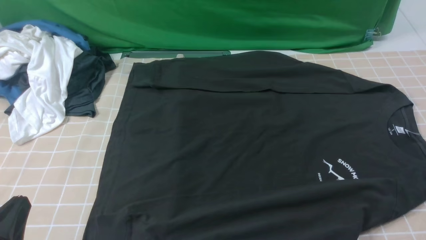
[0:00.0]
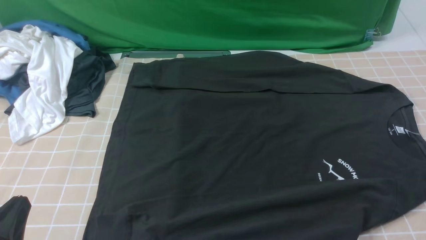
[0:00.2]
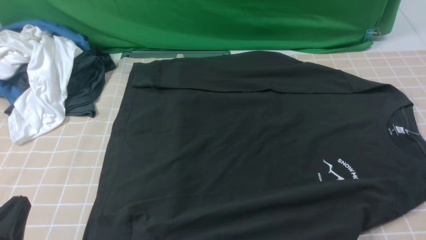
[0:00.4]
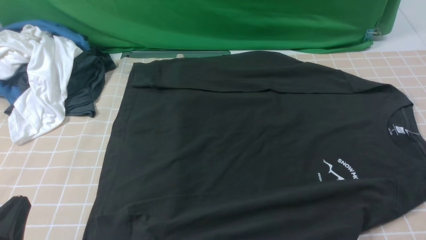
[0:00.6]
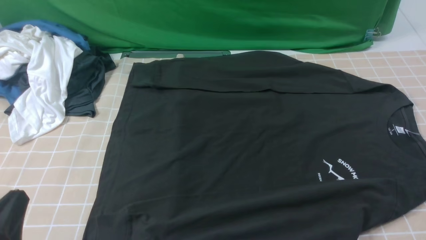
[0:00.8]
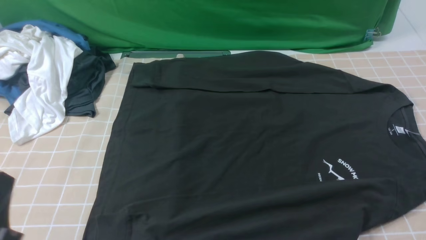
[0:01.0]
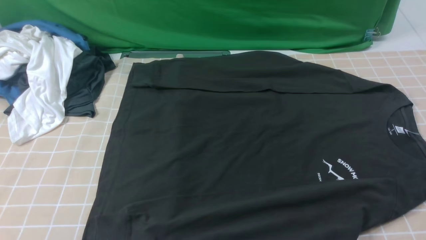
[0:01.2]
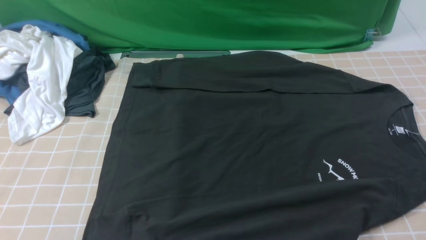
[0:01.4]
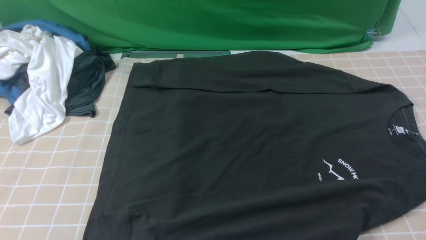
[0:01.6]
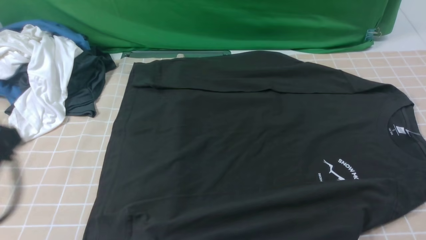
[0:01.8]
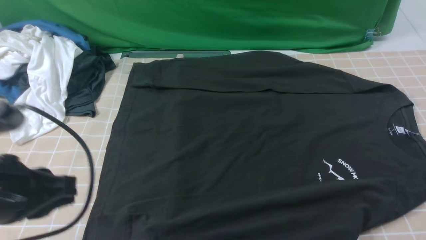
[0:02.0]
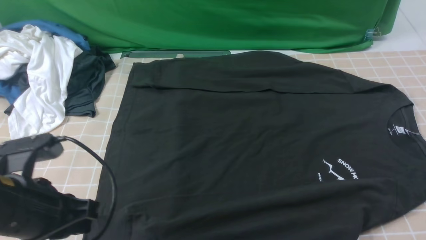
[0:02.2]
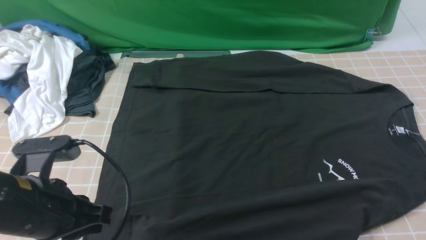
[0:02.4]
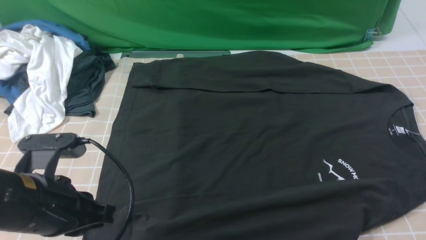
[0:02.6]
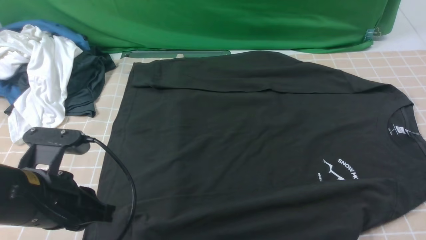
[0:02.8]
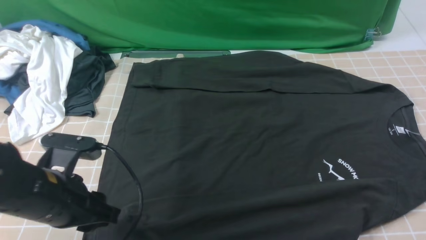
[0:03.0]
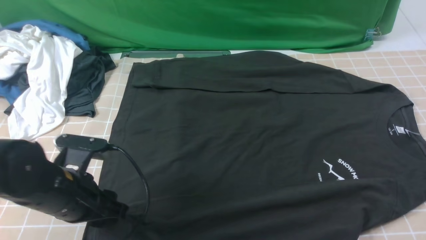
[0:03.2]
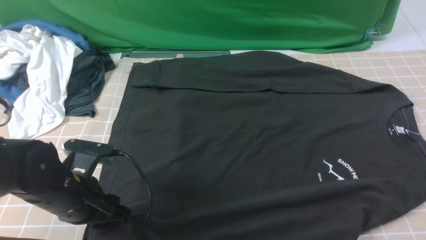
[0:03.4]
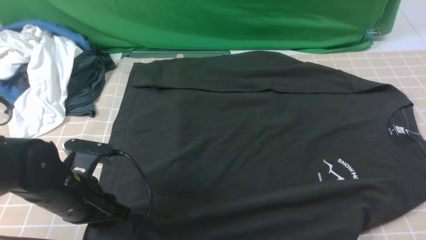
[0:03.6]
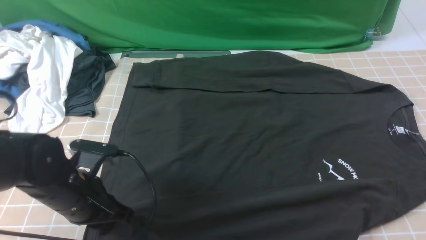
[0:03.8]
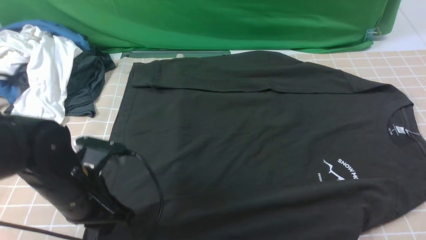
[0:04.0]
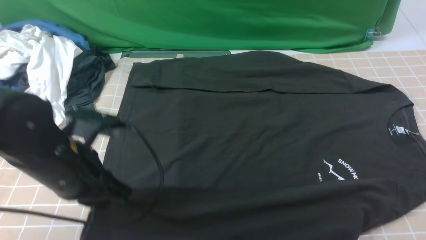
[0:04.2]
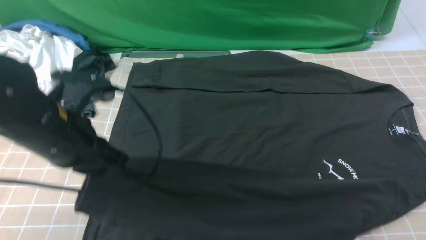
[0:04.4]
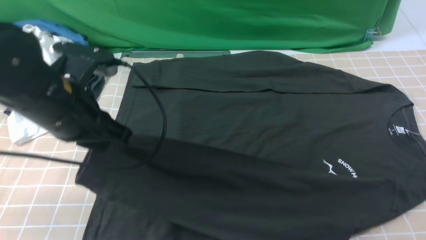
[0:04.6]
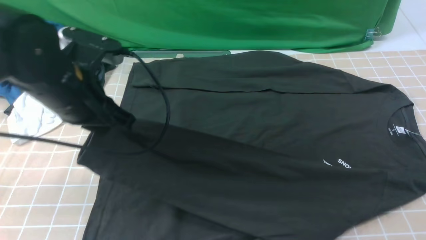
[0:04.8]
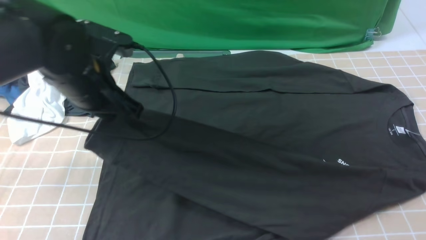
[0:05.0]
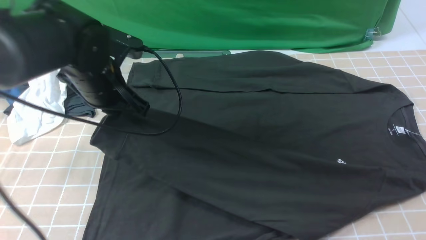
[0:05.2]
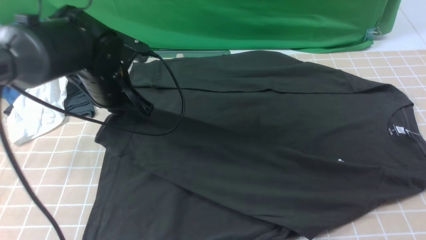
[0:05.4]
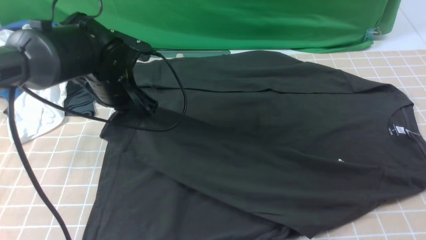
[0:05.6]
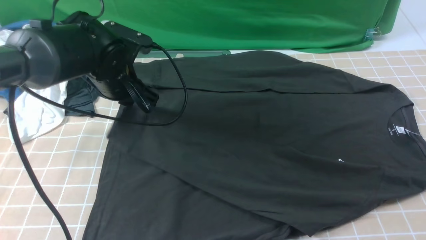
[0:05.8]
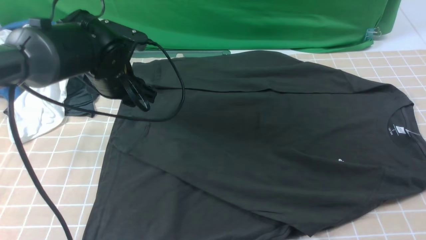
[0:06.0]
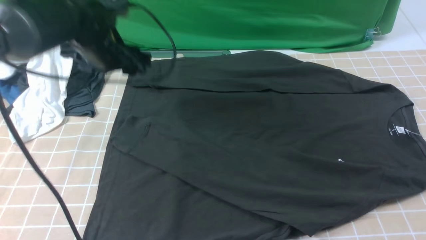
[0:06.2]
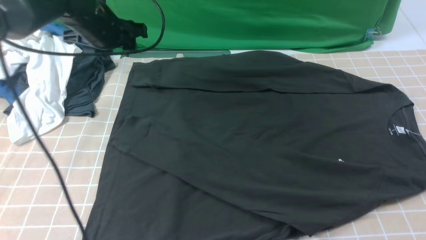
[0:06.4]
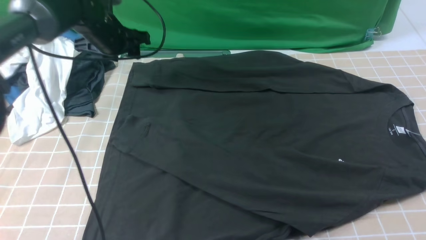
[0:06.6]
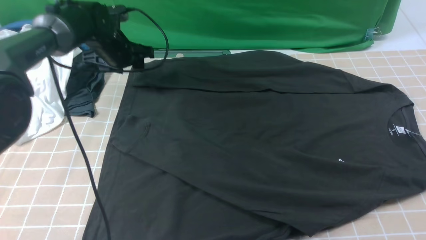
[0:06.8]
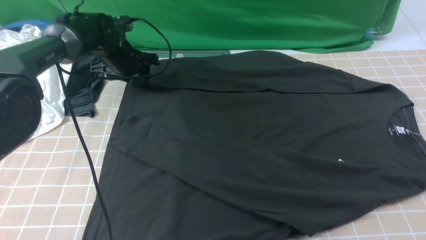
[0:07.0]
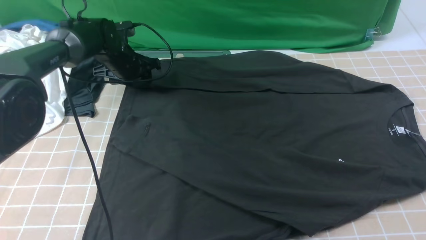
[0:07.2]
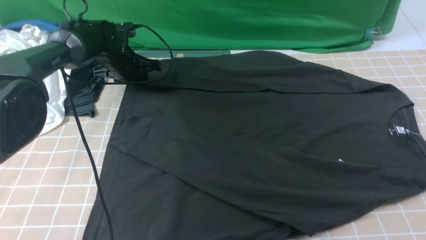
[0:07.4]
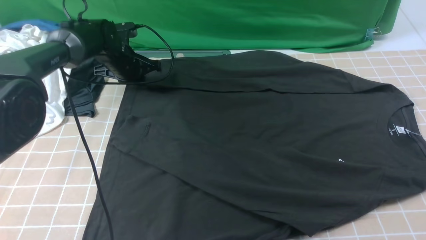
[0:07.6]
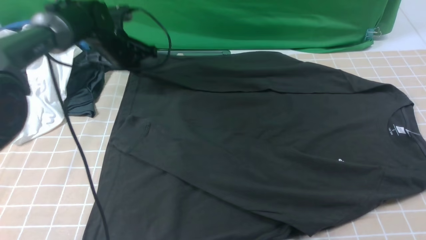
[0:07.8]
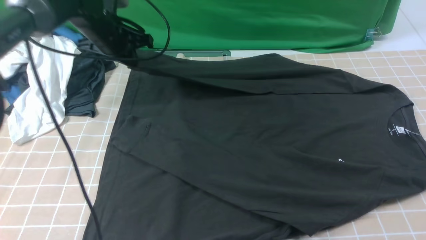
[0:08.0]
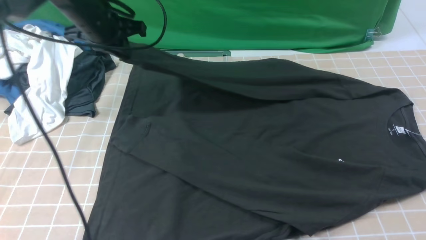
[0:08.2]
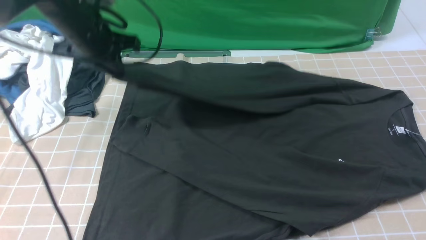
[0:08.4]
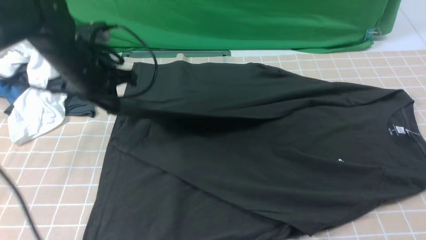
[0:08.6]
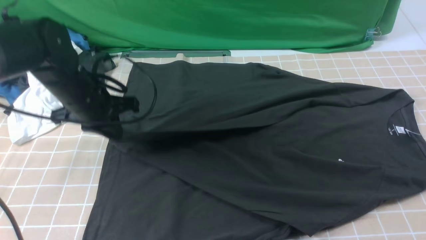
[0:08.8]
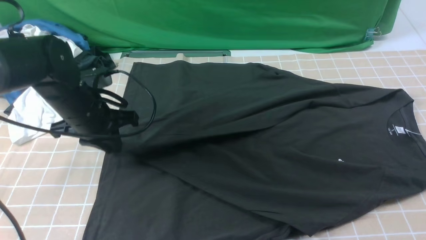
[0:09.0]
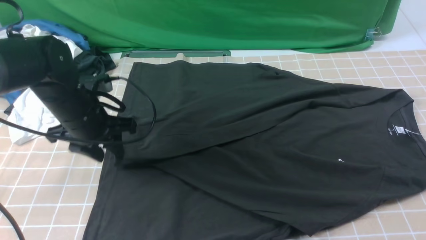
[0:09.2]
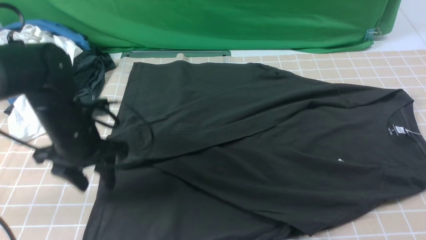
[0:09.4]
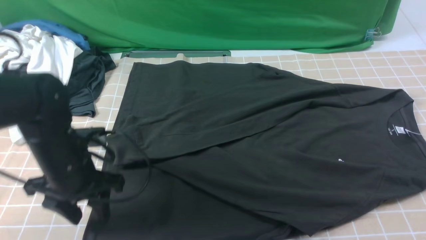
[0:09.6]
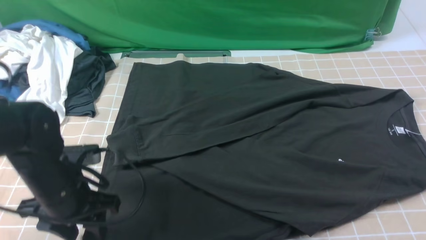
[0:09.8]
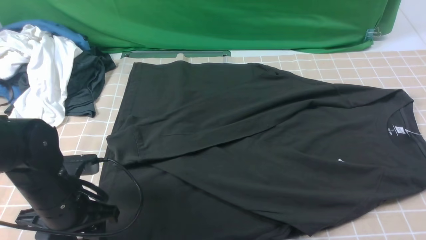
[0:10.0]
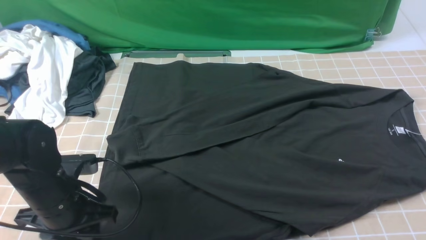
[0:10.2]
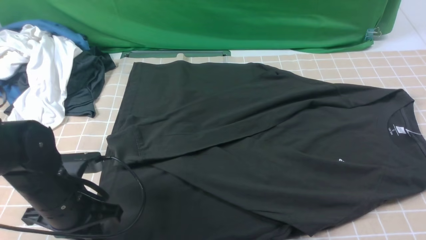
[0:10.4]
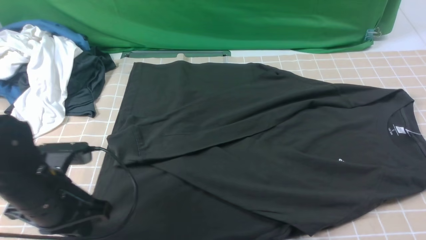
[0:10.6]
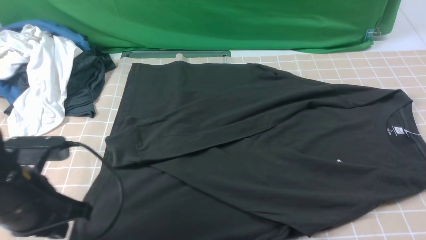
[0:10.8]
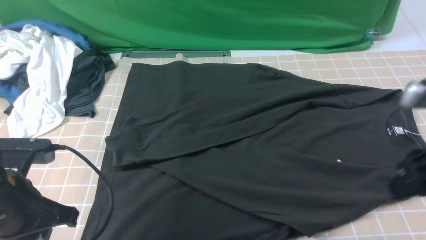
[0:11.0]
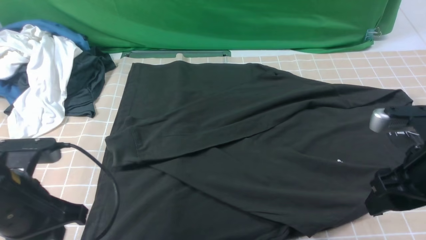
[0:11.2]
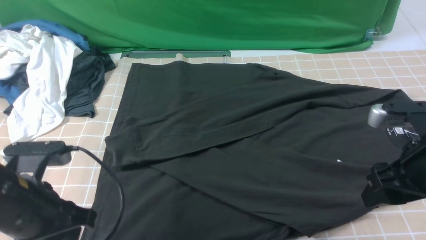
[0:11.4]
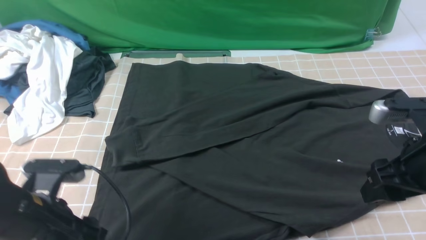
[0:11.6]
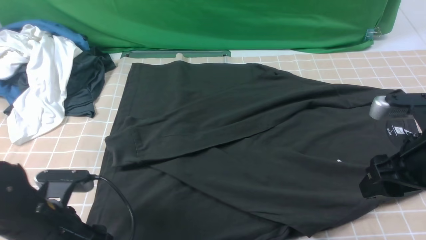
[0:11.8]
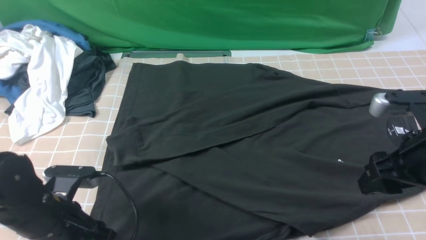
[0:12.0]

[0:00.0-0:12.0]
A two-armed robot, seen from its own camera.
Step, 0.0 to 3.8 s: use the left arm to clamp the cuff closest to it.
Step, 4.0 to 5.8 s: use the left arm to drag and place the cuff at the centered position on the left edge of the fabric.
Step, 6.0 to 7.4 s: use the left arm to clamp the cuff farthest from it.
Step, 7.8 to 9.2 s: use the left arm to drag and drop the cuff onto the cuff closest to the left arm.
0.0 to 1.6 s: The left gripper is displaced upward by approximately 15 cm.
1.6 to 3.0 s: The left gripper travels downward and forward by approximately 20 cm, and opens its fingers.
3.0 to 4.4 s: The left gripper is displaced upward by about 5 cm, and closes its fingers.
4.4 to 6.0 s: The left gripper heads forward, covering approximately 15 cm, and opens.
6.0 to 7.6 s: The left gripper is displaced forward and downward by about 15 cm, and closes up.
7.6 to 9.0 s: The left gripper heads backward, covering some 15 cm.
9.0 to 10.4 s: The left gripper goes some 15 cm backward, and opens, then closes once more.
10.4 to 12.0 s: The right gripper goes about 15 cm downward and forward, and opens, while the left gripper opens its fingers.

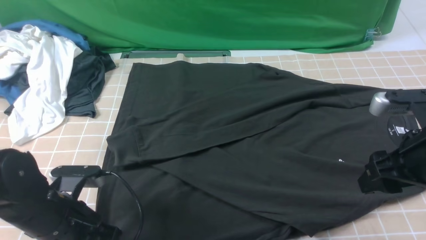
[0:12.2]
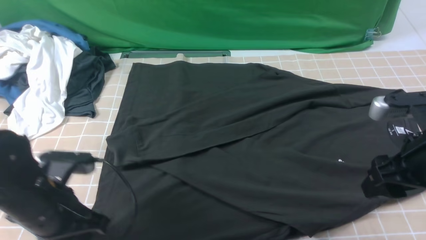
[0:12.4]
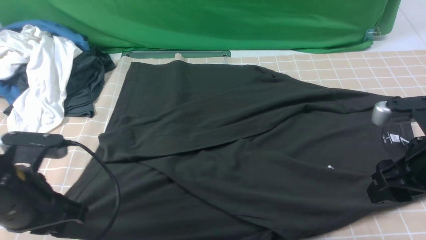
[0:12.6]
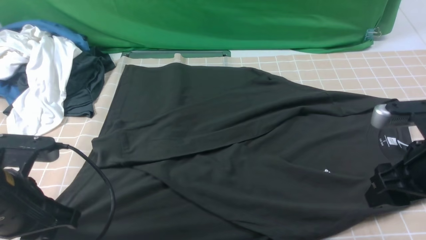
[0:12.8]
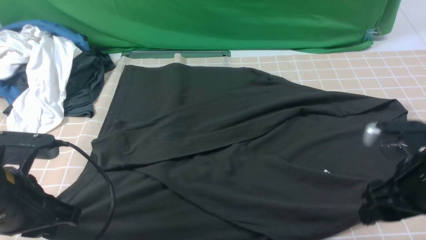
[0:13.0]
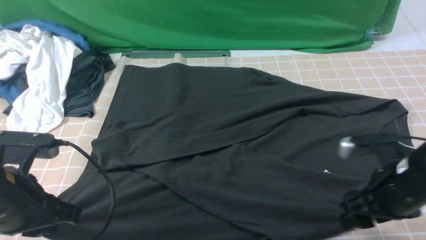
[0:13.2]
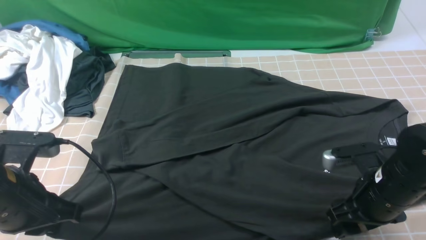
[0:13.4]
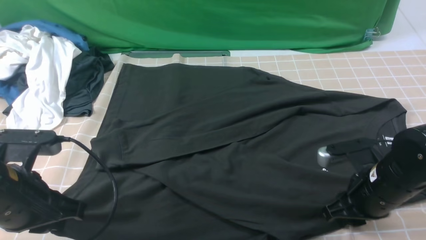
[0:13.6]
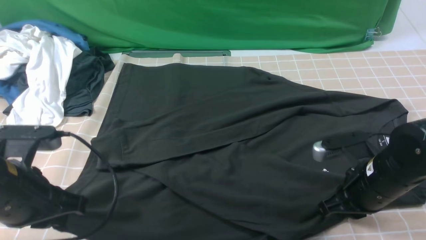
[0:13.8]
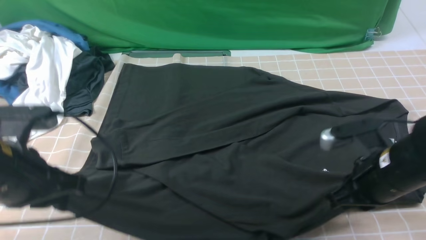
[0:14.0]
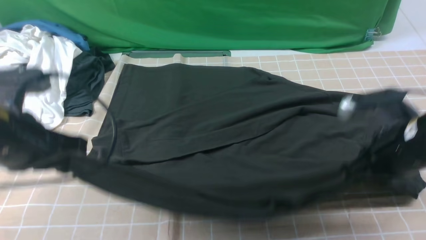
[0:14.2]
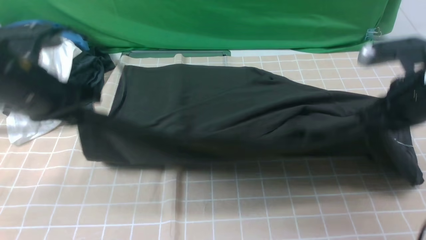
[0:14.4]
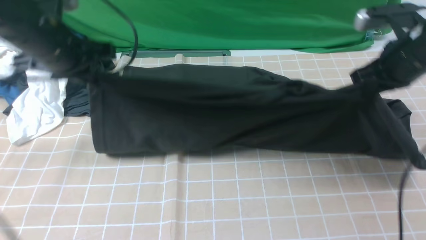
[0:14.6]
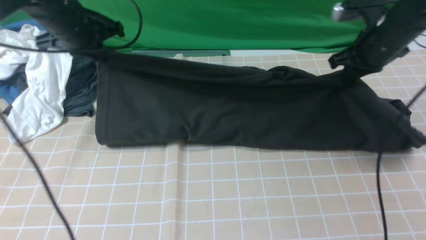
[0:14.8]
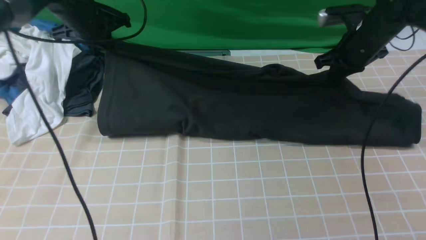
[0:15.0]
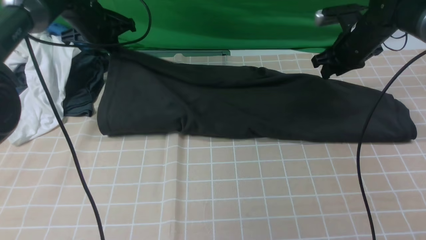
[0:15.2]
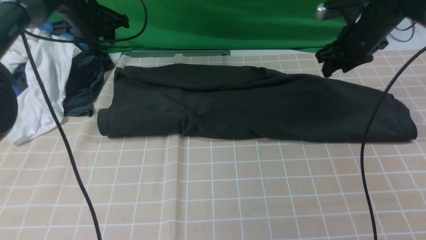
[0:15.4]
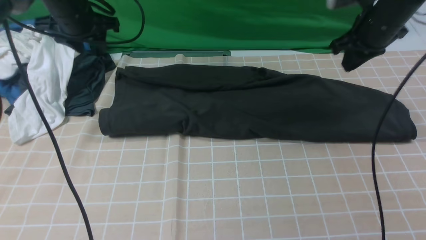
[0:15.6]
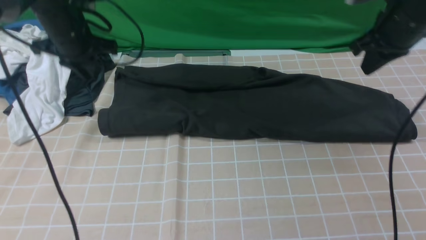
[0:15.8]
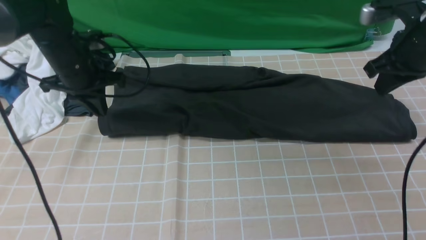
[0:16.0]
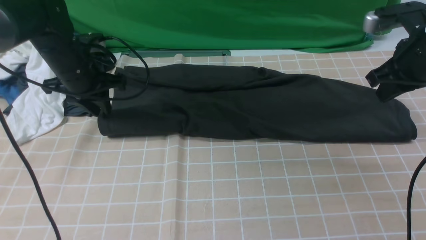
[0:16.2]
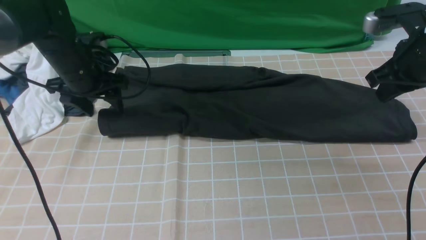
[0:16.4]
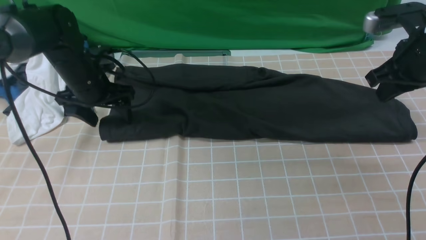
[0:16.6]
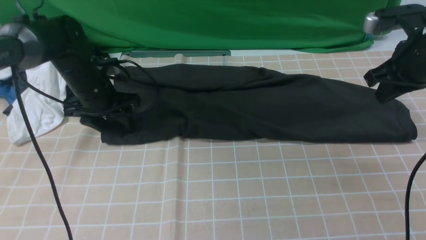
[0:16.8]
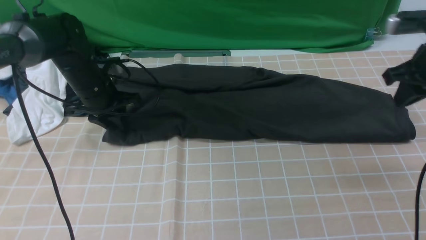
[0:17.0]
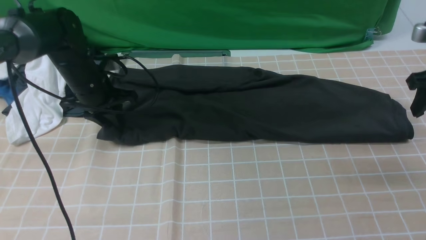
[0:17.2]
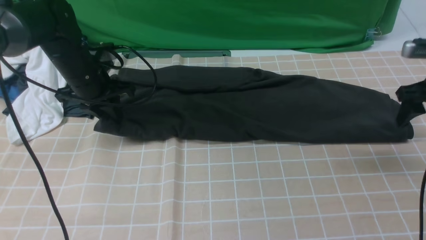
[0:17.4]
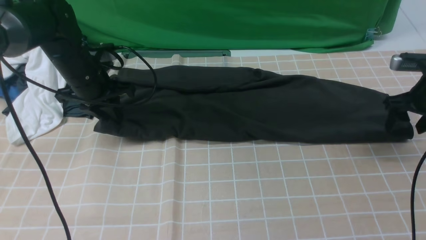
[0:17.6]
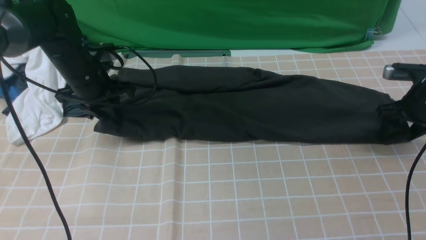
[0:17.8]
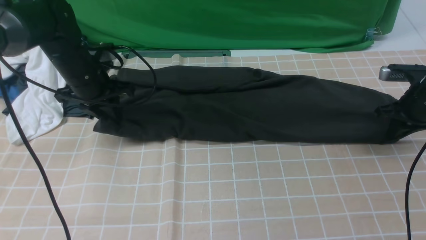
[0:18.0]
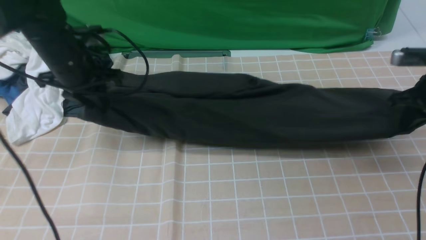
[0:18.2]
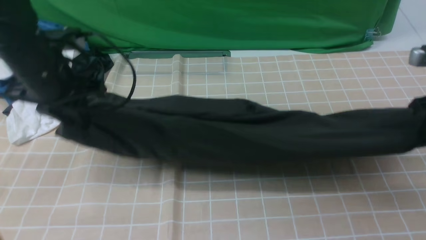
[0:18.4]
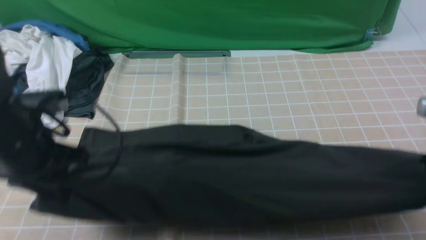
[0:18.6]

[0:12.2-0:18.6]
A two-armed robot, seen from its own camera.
12.2 to 13.8 s: The right gripper is displaced downward by about 10 cm, and closes. Meanwhile the left gripper is displaced upward by approximately 10 cm.
13.8 to 15.4 s: Both grippers travel together forward, some 30 cm. The left gripper opens, while the right gripper opens its fingers.
15.4 to 17.0 s: The right gripper goes approximately 15 cm backward and to the right, while the left gripper is displaced downward and backward by approximately 10 cm, and opens and closes again.
17.0 to 18.6 s: The right gripper moves backward, some 10 cm, and opens and closes again. The left gripper goes some 20 cm backward and upward.
